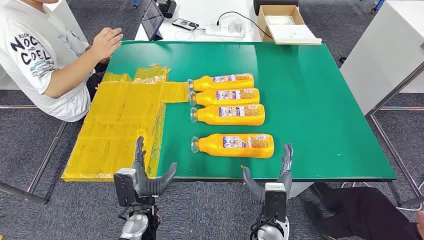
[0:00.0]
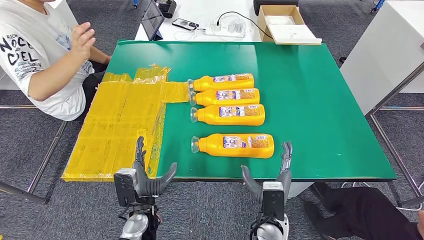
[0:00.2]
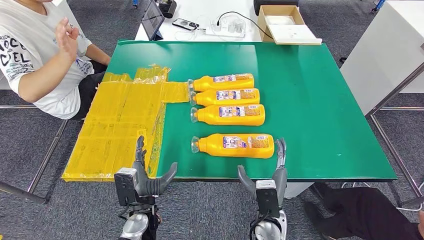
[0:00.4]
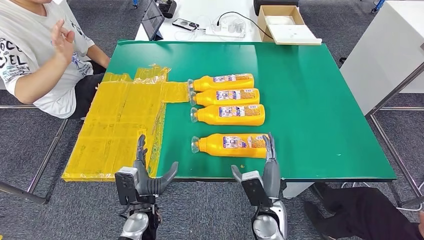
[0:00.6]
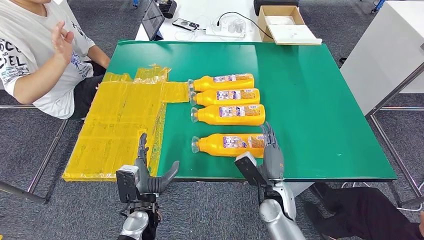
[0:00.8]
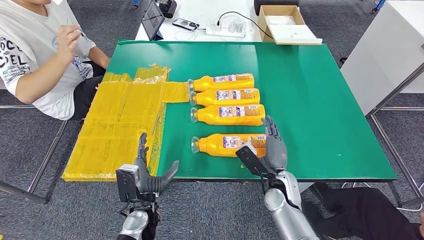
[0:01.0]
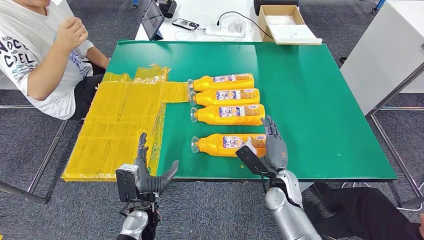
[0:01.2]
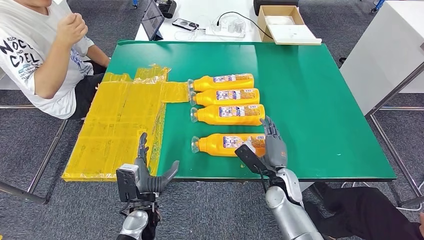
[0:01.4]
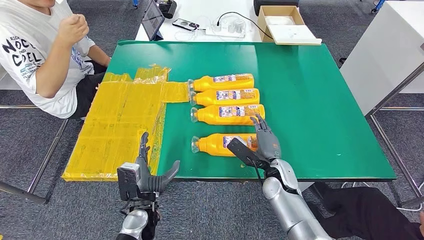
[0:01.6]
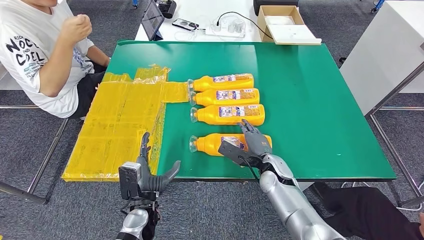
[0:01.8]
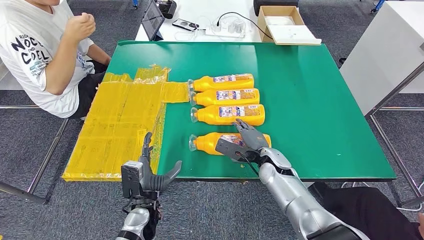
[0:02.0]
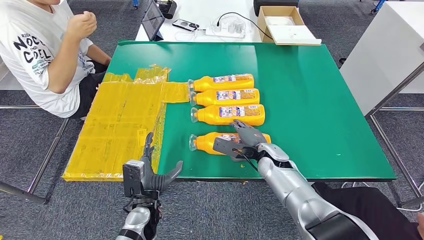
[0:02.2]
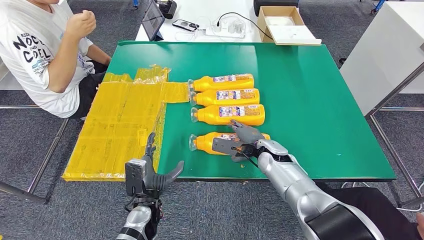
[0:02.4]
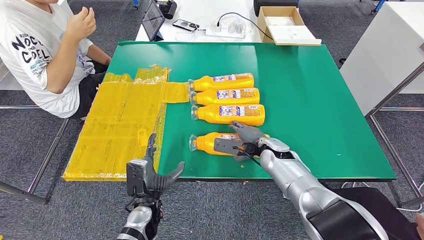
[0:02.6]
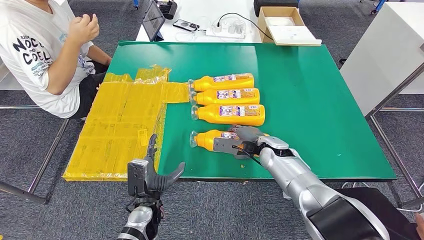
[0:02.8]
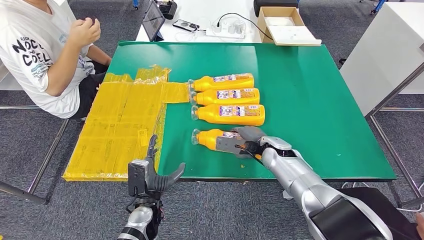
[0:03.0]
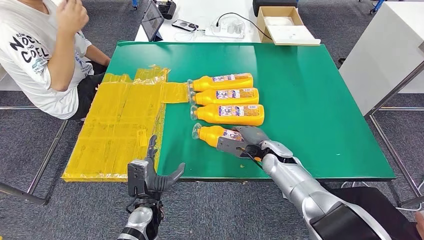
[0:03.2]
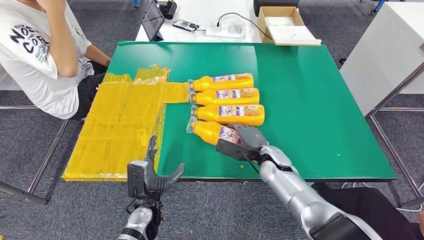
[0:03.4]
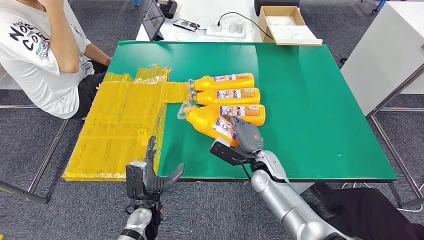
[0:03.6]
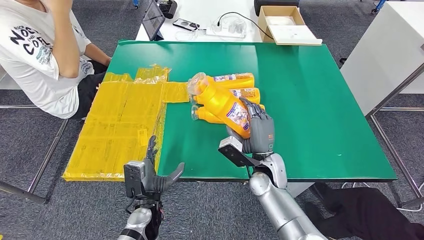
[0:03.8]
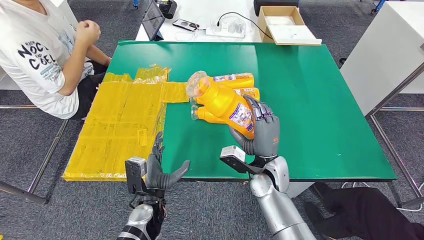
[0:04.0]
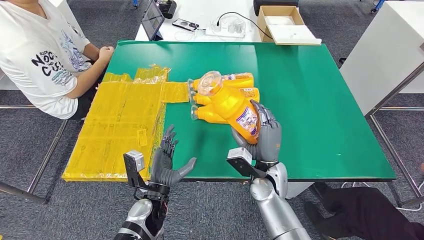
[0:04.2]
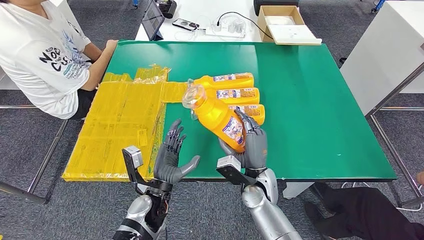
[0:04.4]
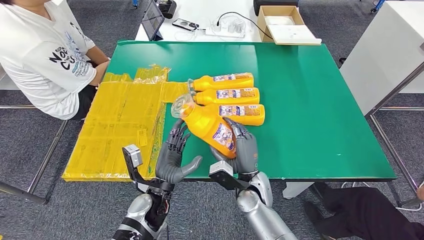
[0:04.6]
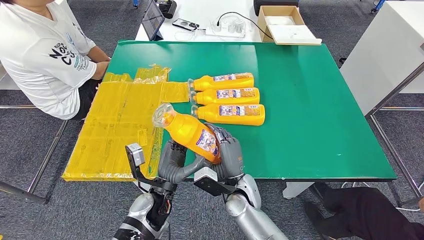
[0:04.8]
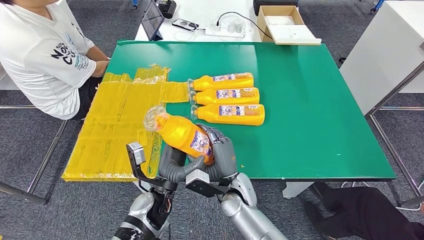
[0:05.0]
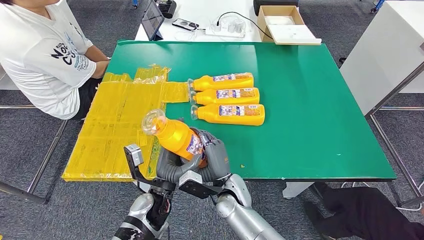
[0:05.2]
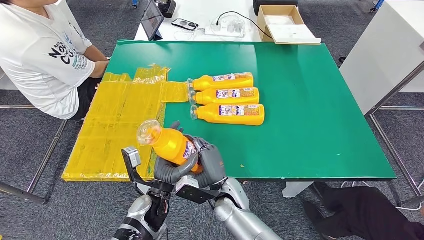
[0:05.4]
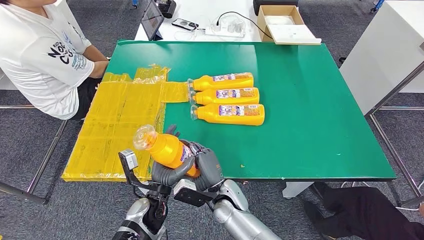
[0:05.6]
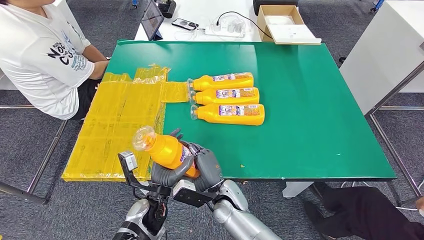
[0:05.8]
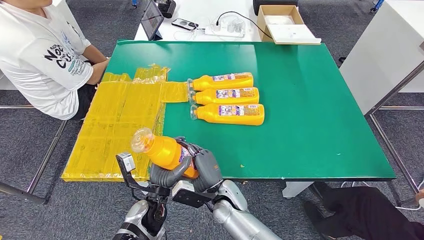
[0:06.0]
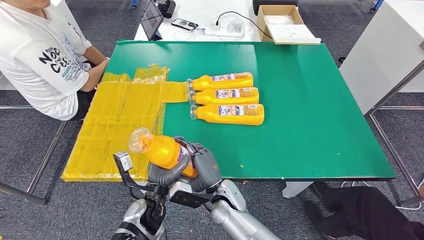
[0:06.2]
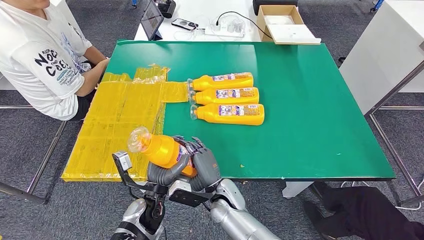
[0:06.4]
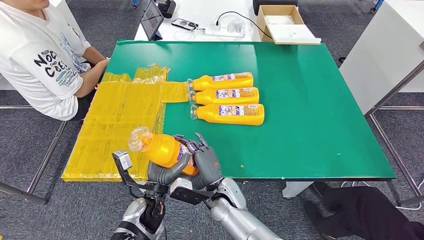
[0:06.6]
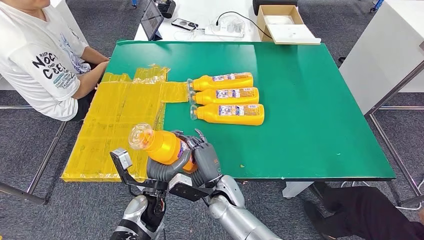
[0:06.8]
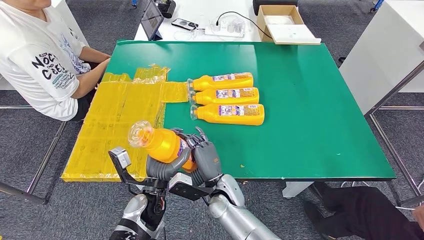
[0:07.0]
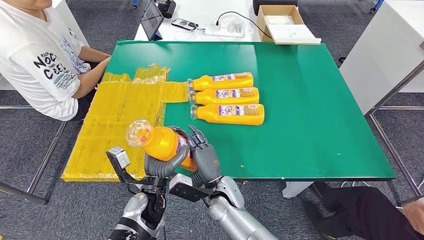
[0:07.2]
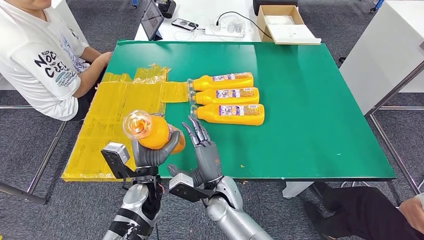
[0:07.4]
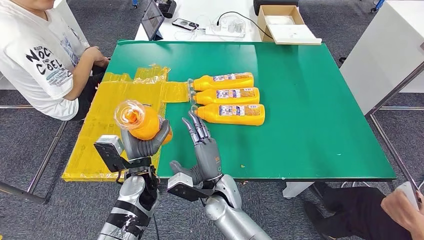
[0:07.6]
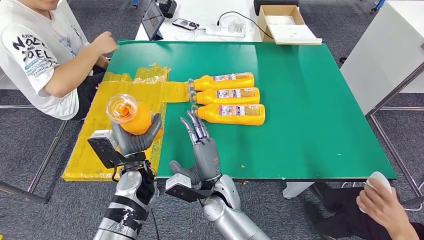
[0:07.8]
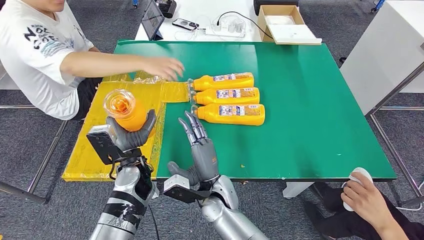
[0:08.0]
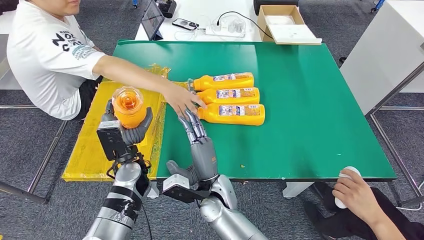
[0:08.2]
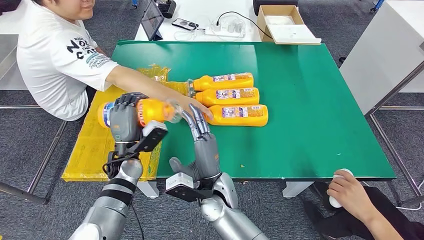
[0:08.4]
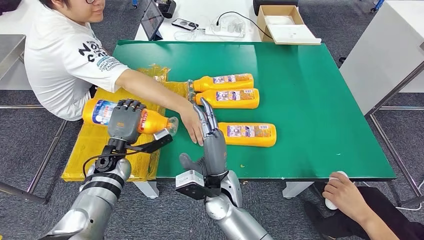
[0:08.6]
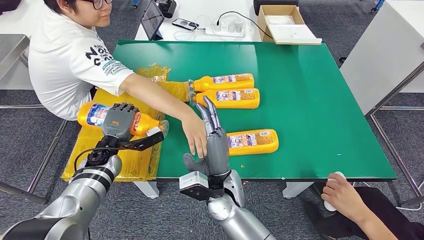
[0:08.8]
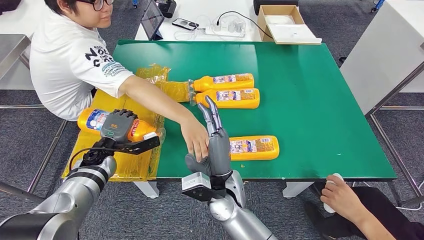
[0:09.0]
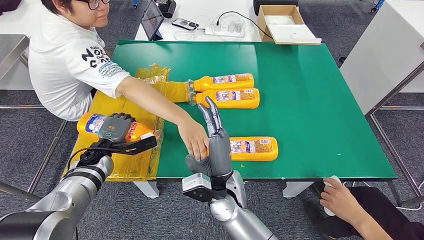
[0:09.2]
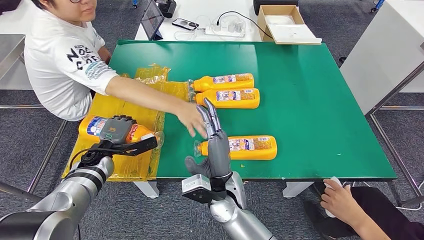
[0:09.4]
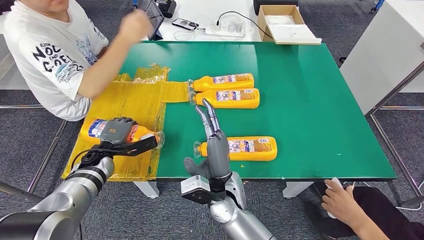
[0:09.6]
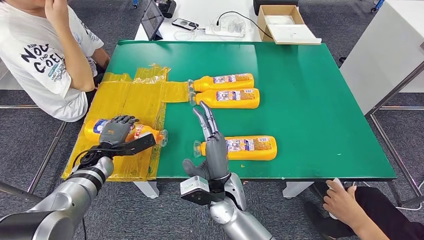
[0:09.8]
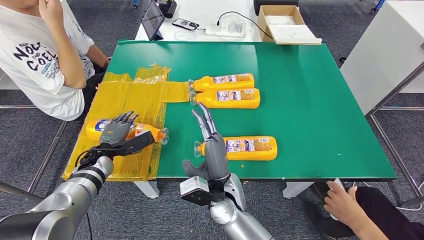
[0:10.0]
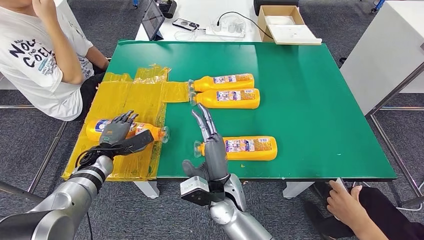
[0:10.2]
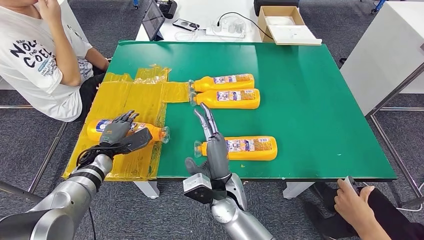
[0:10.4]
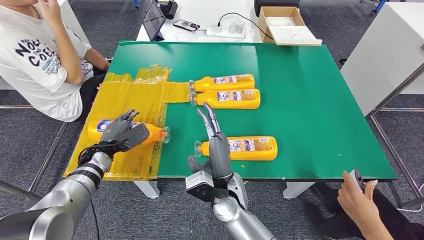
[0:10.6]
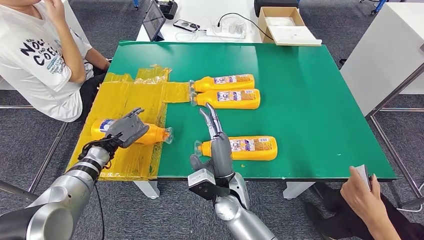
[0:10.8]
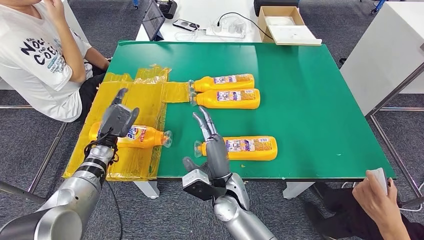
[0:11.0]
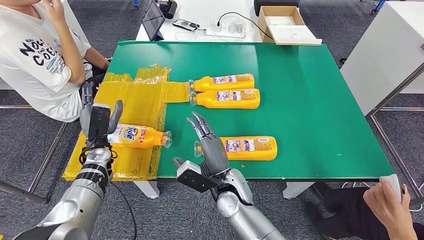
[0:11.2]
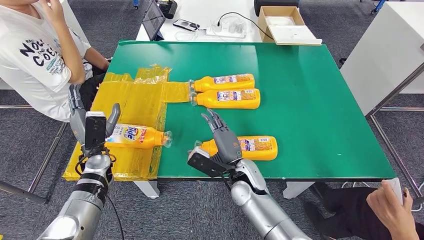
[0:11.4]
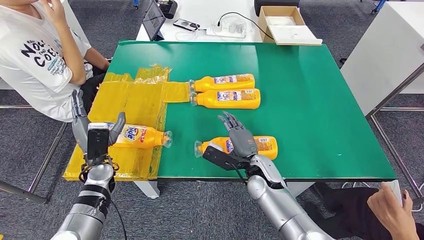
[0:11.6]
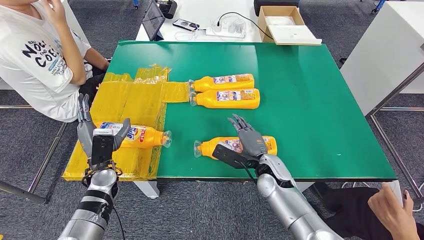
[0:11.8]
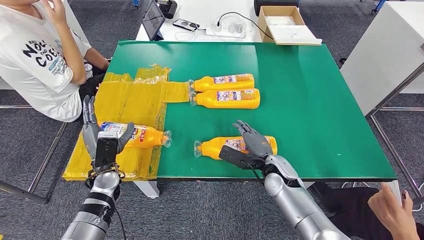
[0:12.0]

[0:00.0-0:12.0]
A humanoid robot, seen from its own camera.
Step, 0:00.0 to 0:04.0: Take the fast-moving consumer goods bottle from the table.
Step, 0:04.2 to 0:11.0: Flip the fast-moving consumer goods bottle to the front side.
0:01.6 to 0:03.0: The right hand moves forward, approximately 5 cm.
0:03.0 to 0:04.4: The right hand travels backward and to the left by some 10 cm. Meanwhile the left hand moves roughly 5 cm.
0:04.4 to 0:06.0: The right hand is displaced to the left by about 10 cm.
0:06.0 to 0:07.6: The right hand ends up about 5 cm from where it was; the left hand heads upward, covering roughly 5 cm.

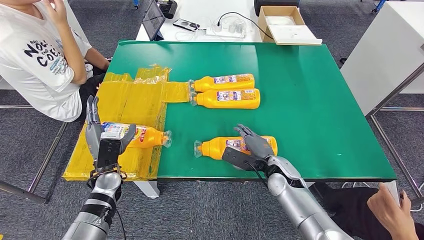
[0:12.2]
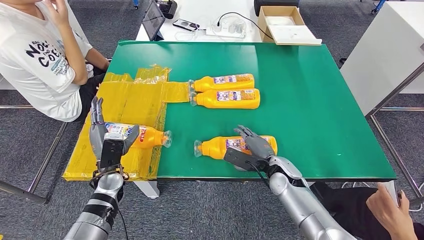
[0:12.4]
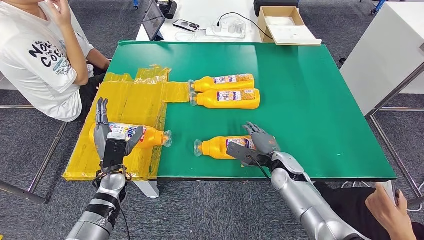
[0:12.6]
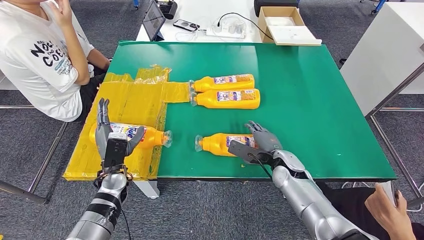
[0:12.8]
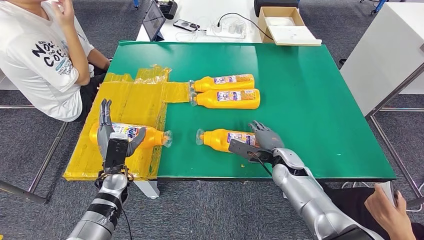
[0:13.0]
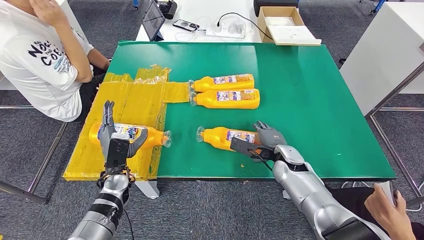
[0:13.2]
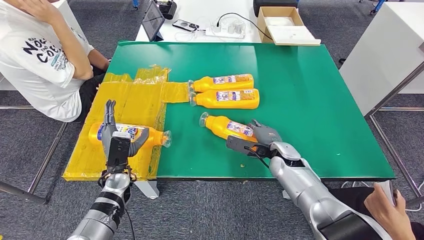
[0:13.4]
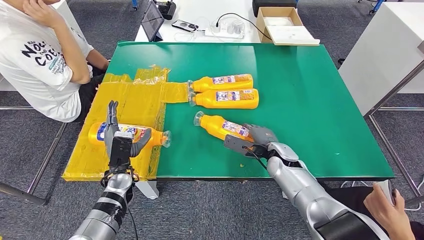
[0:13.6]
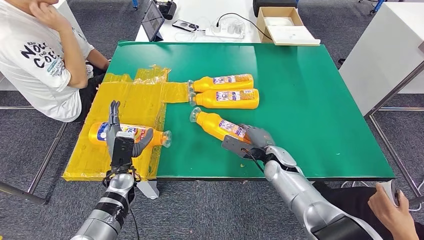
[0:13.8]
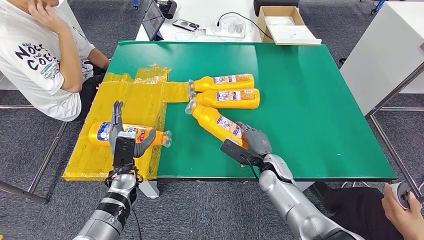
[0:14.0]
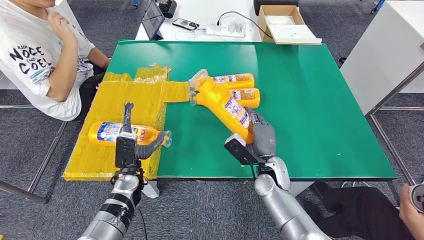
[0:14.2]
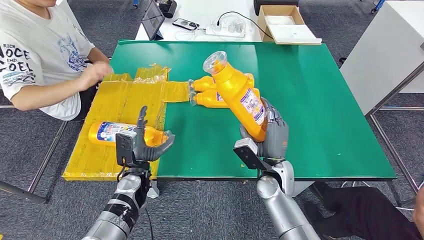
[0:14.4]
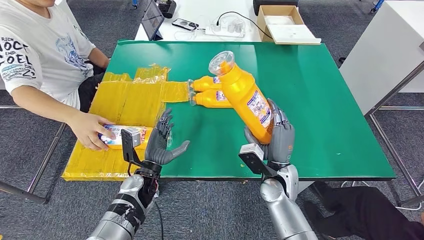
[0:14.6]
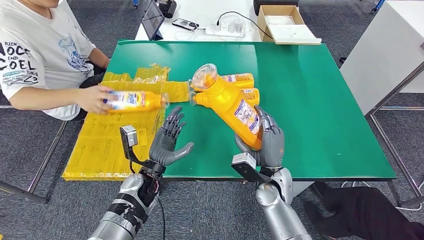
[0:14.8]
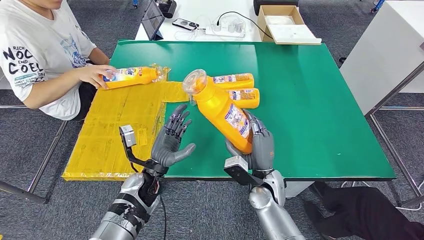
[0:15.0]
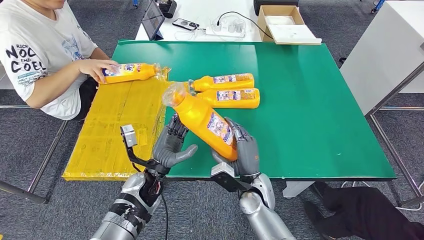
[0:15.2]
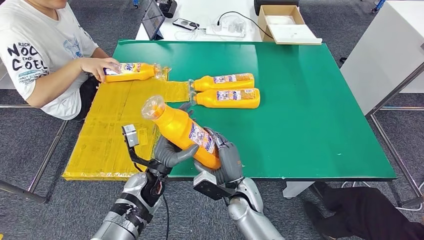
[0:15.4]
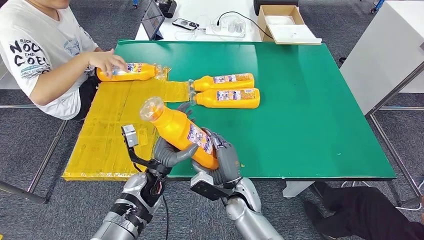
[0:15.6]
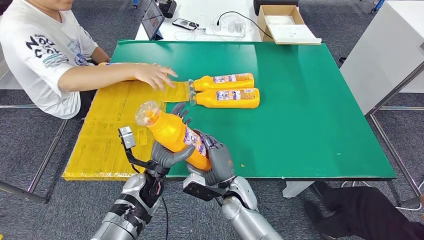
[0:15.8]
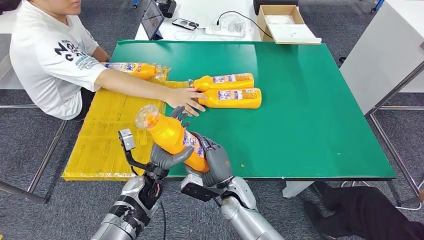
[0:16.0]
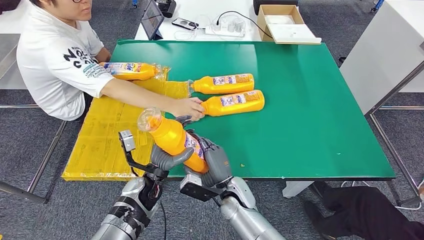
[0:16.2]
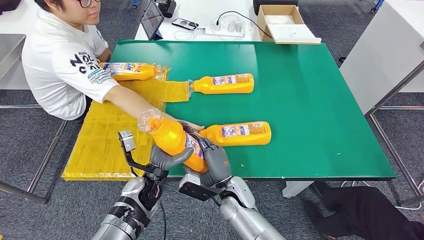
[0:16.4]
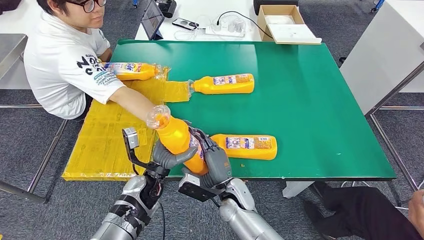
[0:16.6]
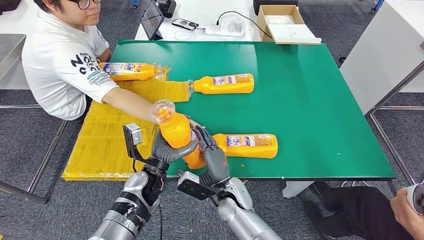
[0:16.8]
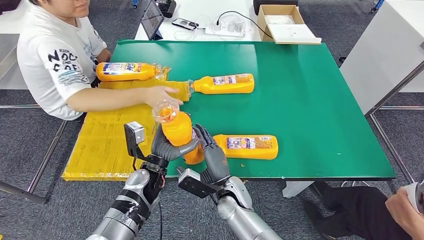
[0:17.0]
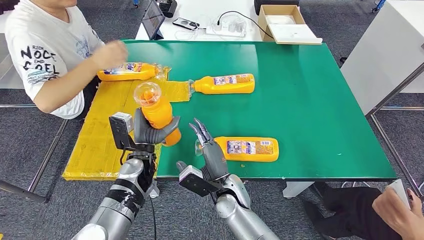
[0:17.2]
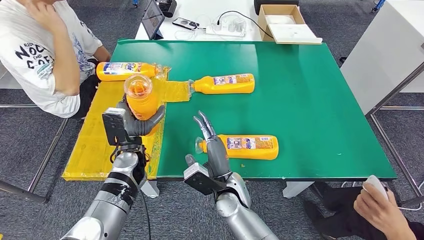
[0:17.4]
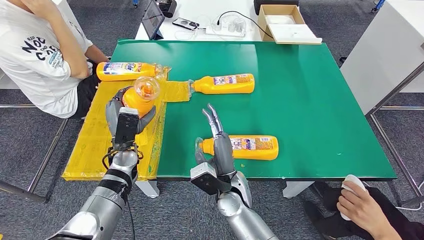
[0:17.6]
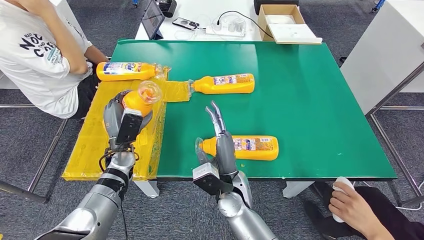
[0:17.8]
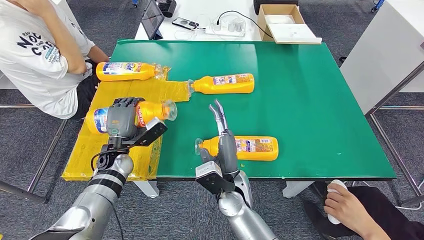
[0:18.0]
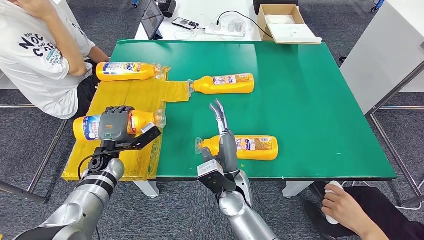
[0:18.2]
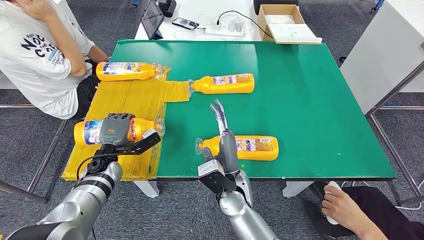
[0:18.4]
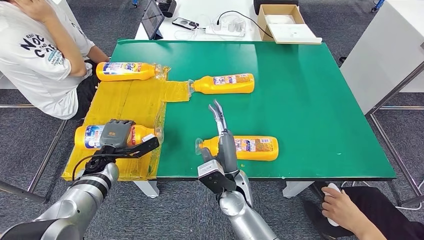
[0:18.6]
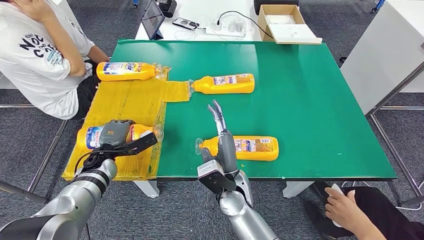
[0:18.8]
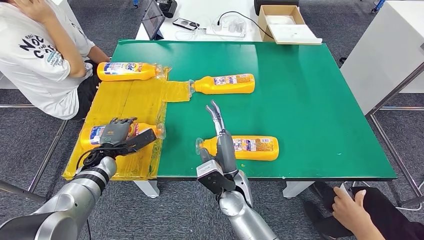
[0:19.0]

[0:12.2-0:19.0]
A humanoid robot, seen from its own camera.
Step, 0:12.2 to 0:14.4: Pick up the fast-moving consumer goods bottle from the table.
0:17.6 to 0:19.0: The left hand travels to the left and downward by about 10 cm.
